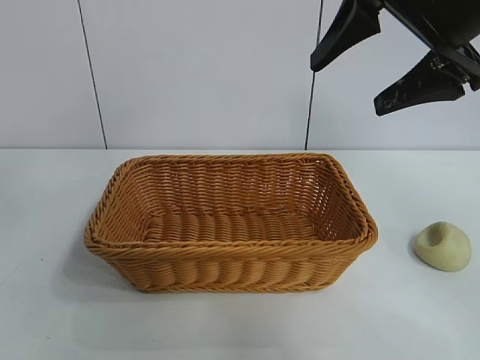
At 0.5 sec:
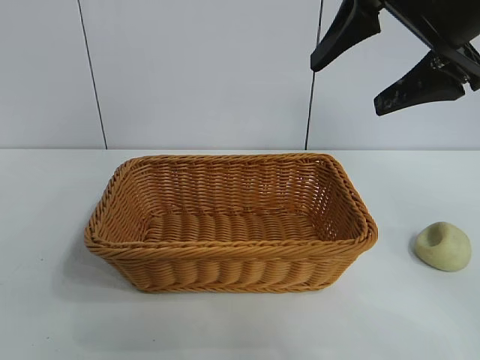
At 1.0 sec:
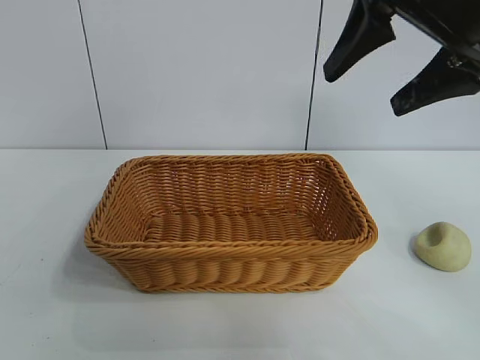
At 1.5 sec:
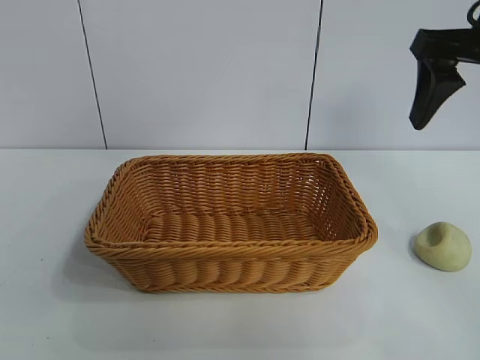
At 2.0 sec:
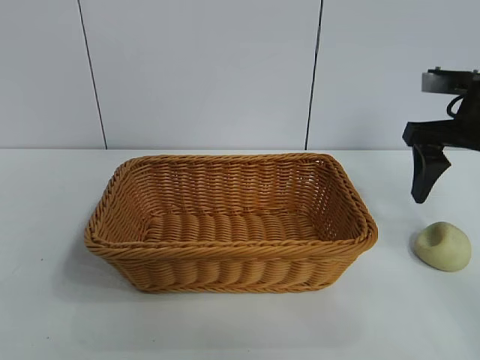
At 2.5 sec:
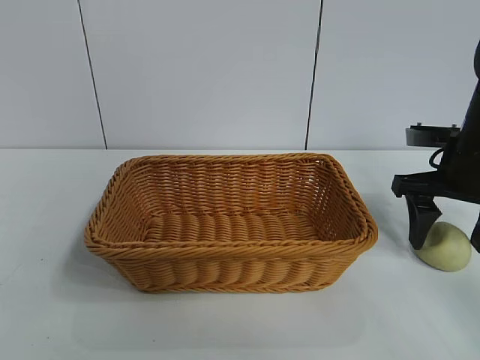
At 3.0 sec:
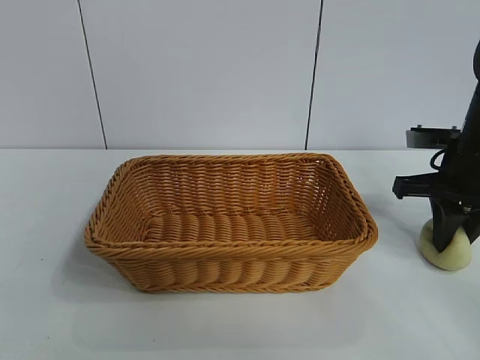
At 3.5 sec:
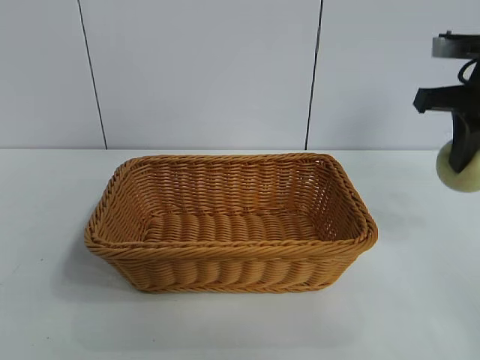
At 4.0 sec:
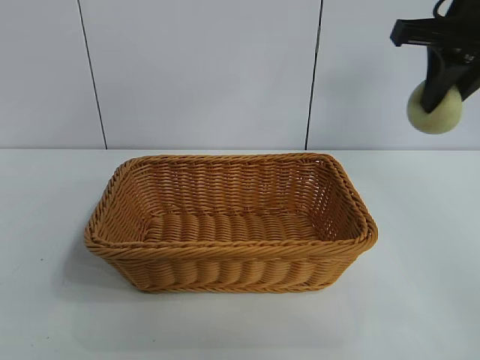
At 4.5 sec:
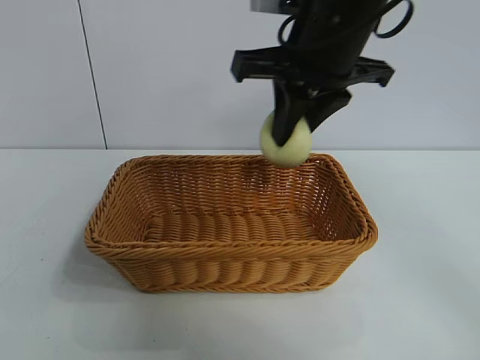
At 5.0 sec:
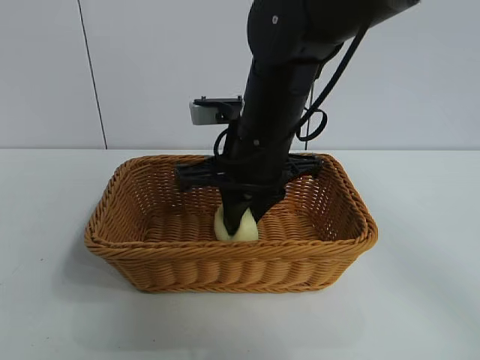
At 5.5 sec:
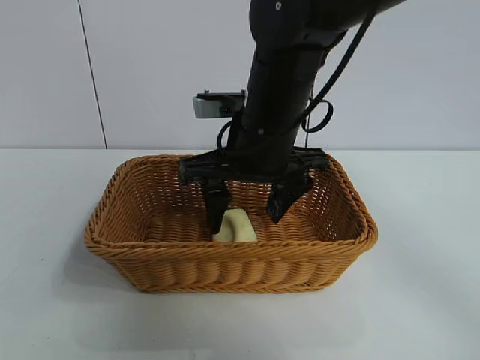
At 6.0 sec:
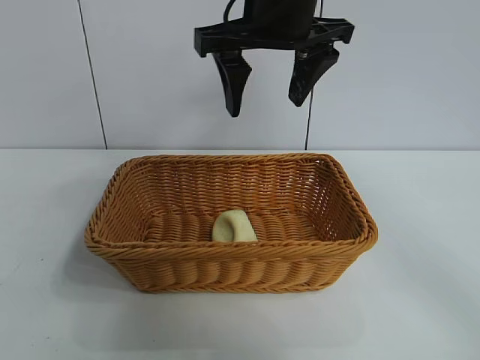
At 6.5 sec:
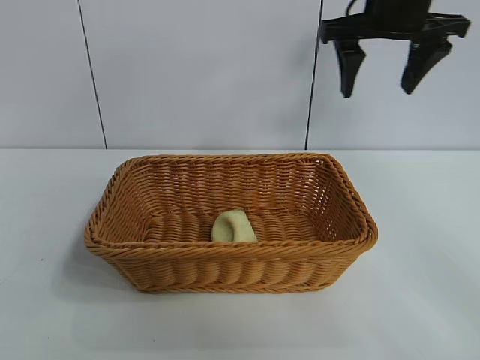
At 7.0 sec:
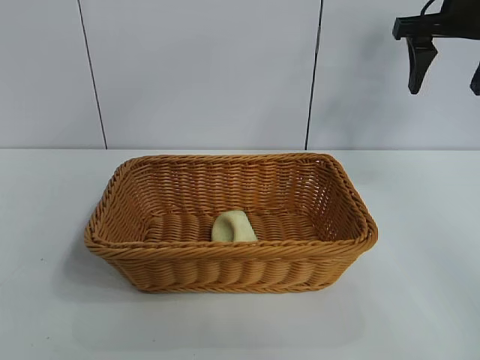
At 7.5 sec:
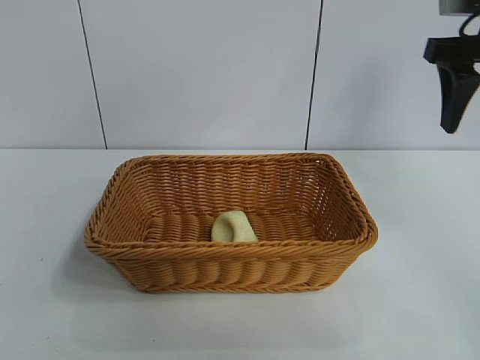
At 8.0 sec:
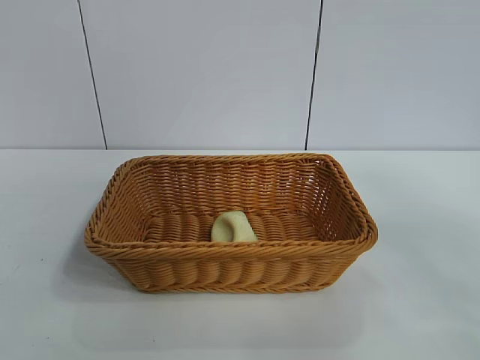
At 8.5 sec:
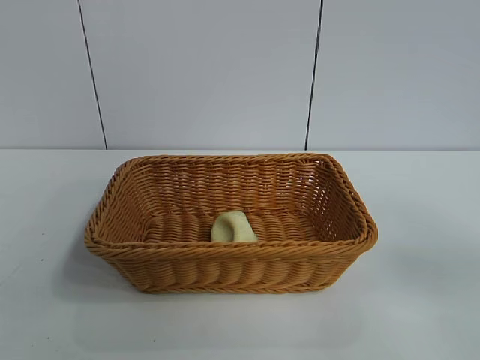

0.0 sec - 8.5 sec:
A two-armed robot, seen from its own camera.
Task of the whole recording: pick up the egg yolk pastry and put it into the basket.
Step, 0.0 sec - 2.5 sec: Grasp egg yolk pastry with right gripper.
Step, 3.0 sec - 5.5 sec: Place the egg yolk pastry in the basket with right gripper.
